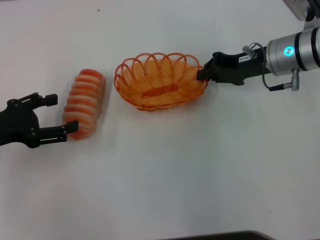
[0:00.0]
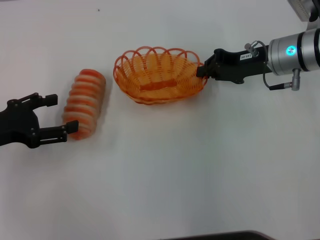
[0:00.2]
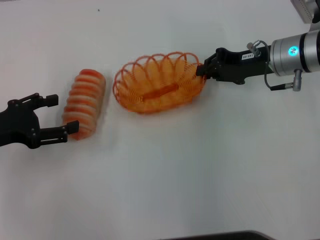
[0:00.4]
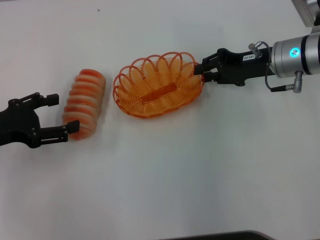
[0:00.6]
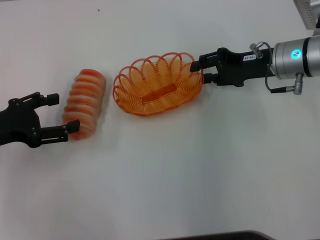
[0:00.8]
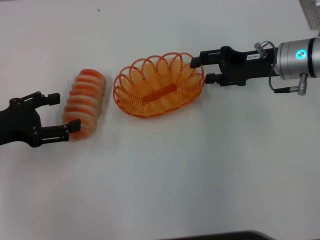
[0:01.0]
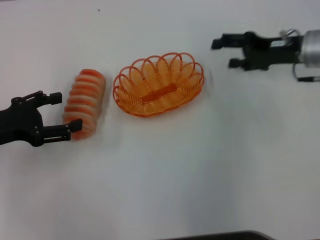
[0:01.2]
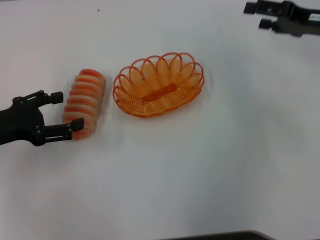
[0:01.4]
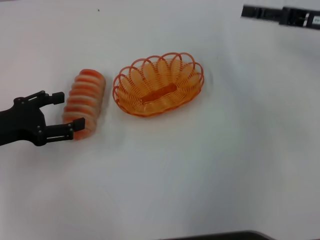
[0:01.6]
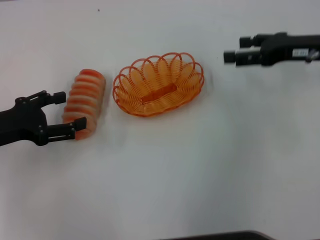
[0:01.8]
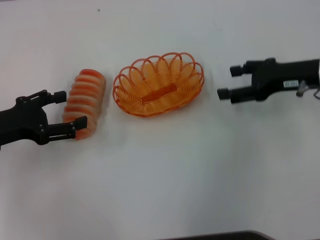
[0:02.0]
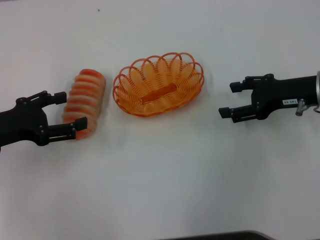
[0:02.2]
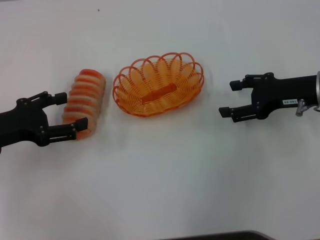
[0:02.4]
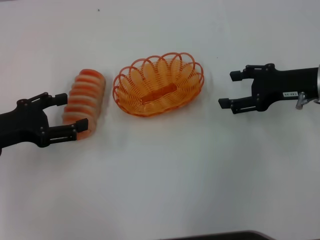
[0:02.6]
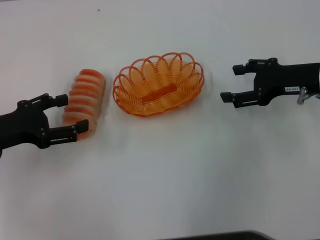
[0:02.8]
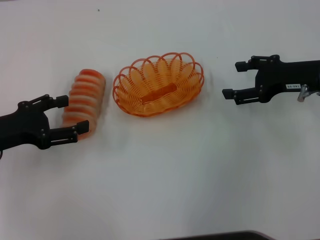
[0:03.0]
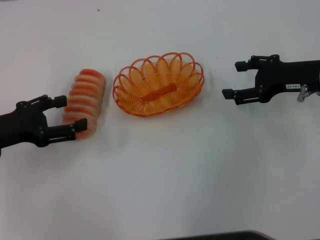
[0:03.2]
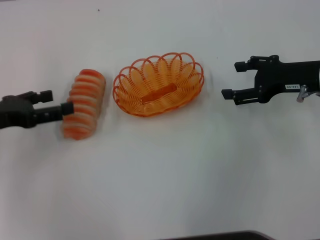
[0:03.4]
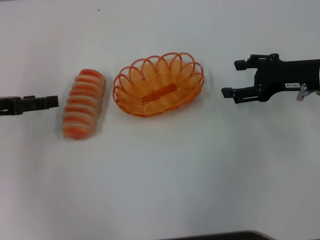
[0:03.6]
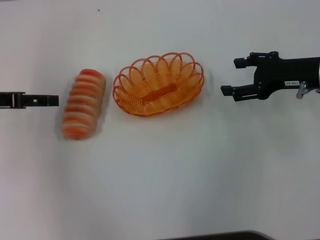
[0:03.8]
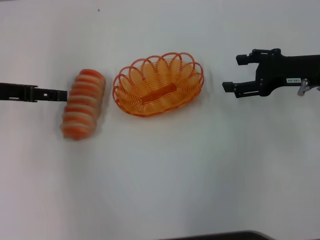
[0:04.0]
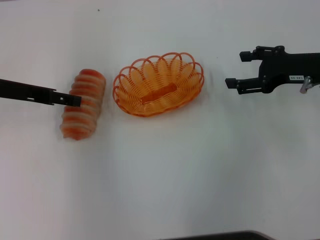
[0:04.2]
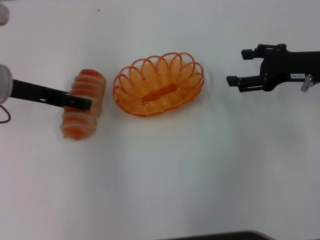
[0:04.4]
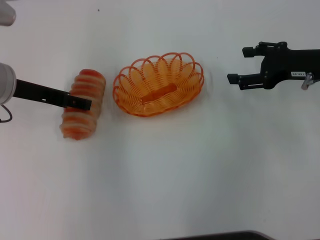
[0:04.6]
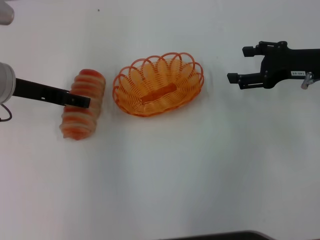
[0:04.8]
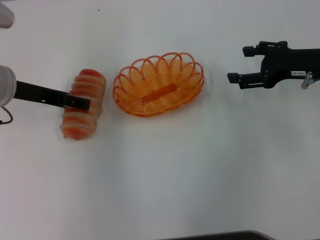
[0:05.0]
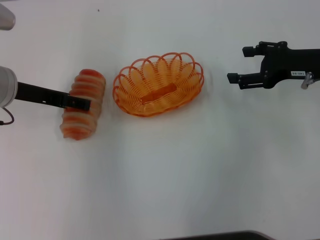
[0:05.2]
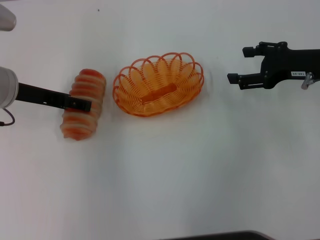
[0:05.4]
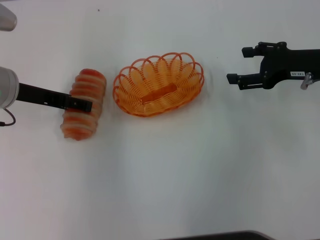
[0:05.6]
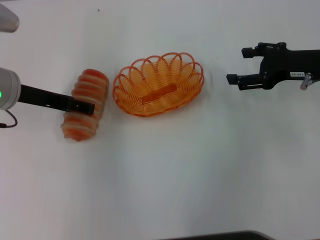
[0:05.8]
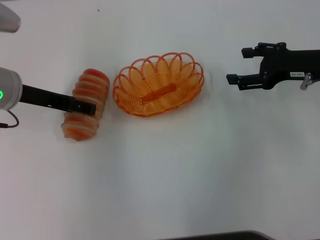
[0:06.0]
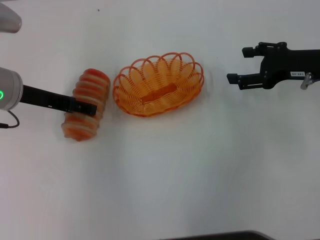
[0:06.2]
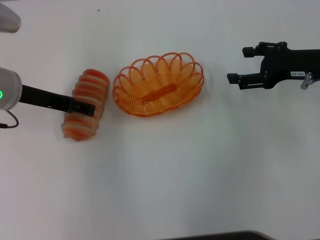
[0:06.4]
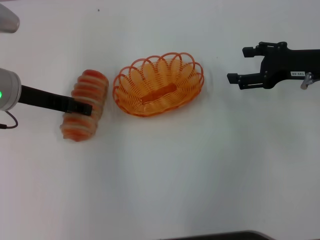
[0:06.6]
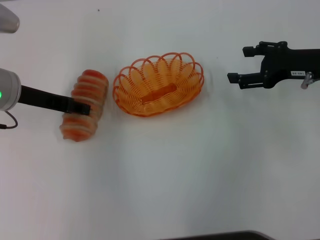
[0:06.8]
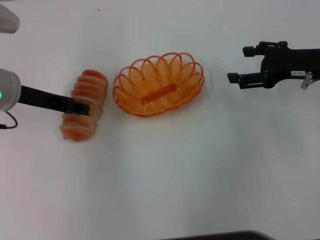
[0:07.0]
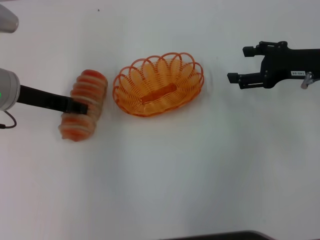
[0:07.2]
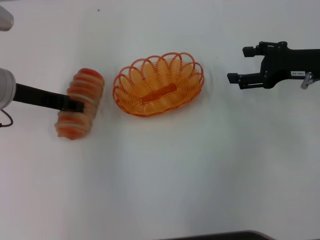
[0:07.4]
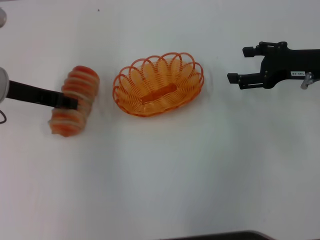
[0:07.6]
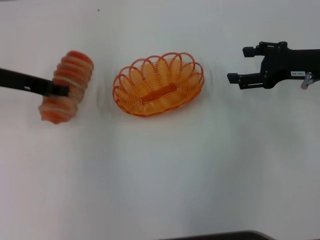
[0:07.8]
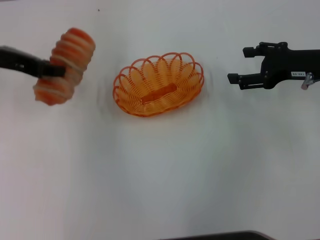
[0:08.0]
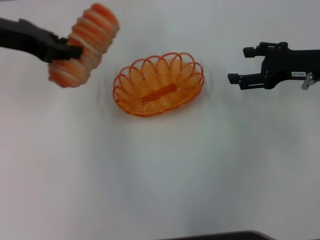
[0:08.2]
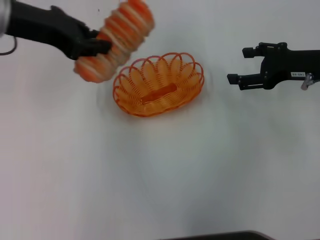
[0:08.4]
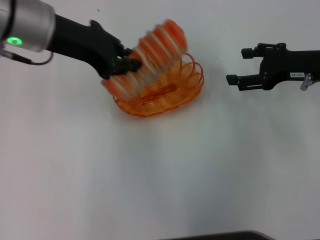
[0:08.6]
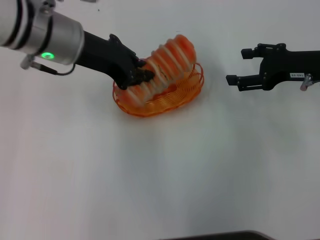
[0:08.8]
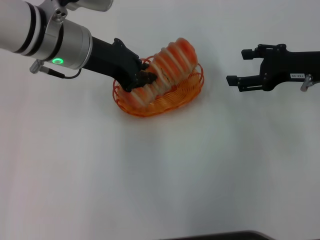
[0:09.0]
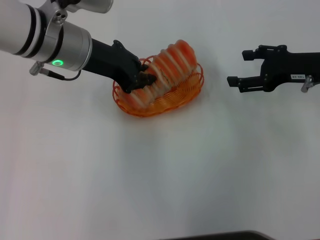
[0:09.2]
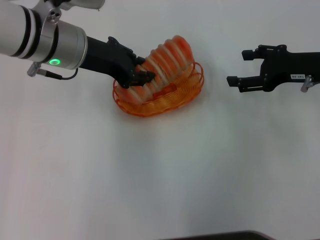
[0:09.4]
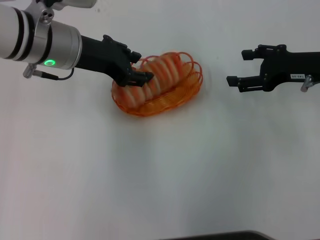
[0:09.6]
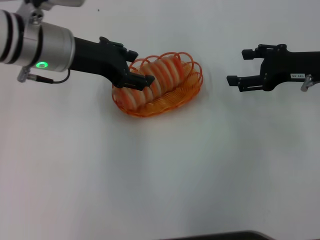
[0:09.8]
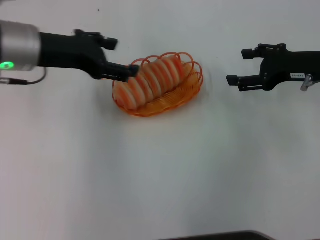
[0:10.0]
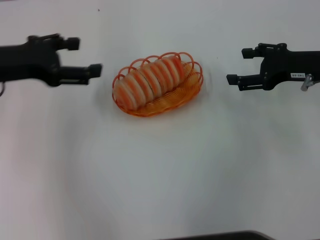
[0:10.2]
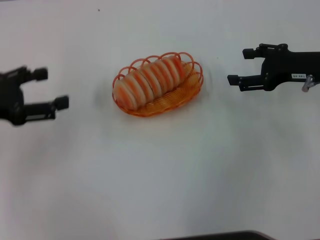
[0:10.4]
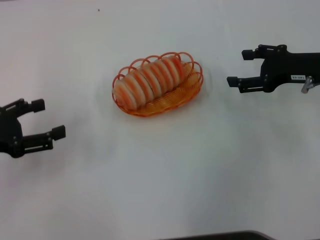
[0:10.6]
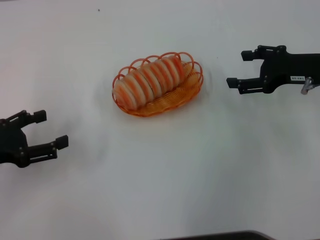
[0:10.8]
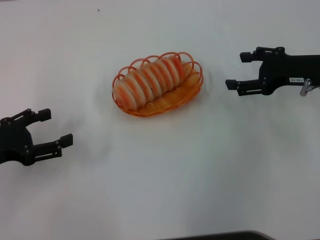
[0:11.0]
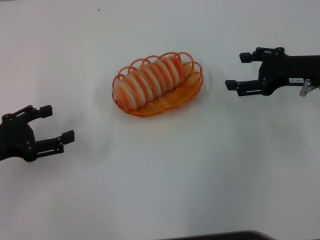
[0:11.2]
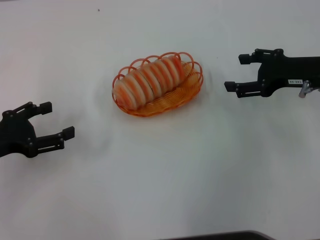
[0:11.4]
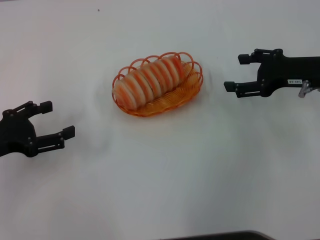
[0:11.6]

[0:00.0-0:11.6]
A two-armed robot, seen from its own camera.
Step, 0:01.2 to 0:07.6: Pick up the long bread with the left gripper.
Step, 0:08.0 to 0:10.0: Place the long bread into the basket with the left gripper.
0:00.0 to 0:01.4: The right gripper goes approximately 10 cm to the right, and opens.
0:01.4 to 0:02.8: The right gripper ends up roughly 5 cm from where it was.
0:02.8 to 0:04.4: The left gripper travels forward, to the right and upward by about 10 cm.
0:04.4 to 0:05.8: Both grippers stay about where they are.
0:05.8 to 0:07.2: The left gripper closes its fingers.
0:07.2 to 0:08.8: The left gripper heads to the right and upward, covering about 10 cm, and closes.
0:08.8 to 0:10.2: The left gripper travels to the left by roughly 10 cm, and opens its fingers.
0:10.2 to 0:11.6: The left gripper shifts roughly 15 cm downward, backward and to the left.
